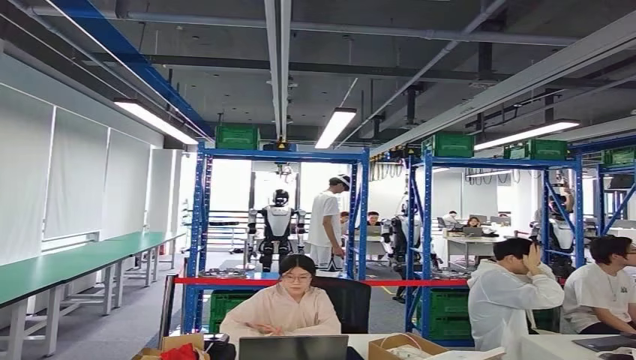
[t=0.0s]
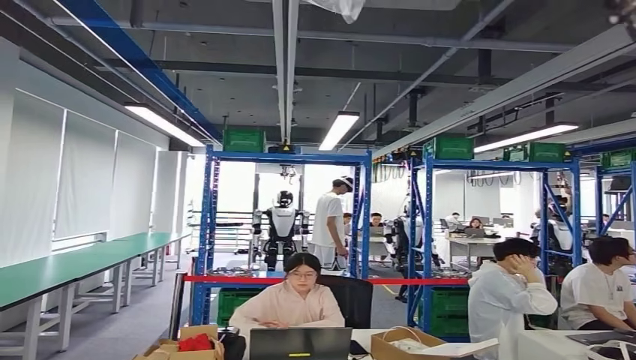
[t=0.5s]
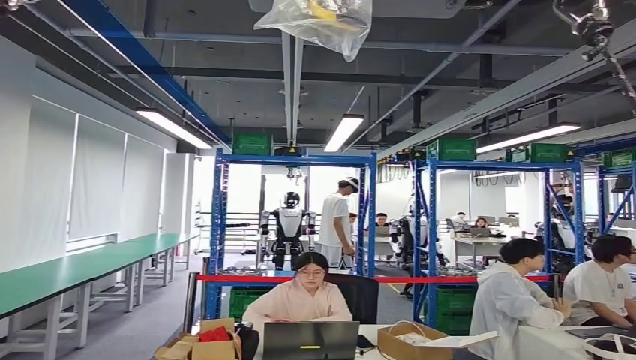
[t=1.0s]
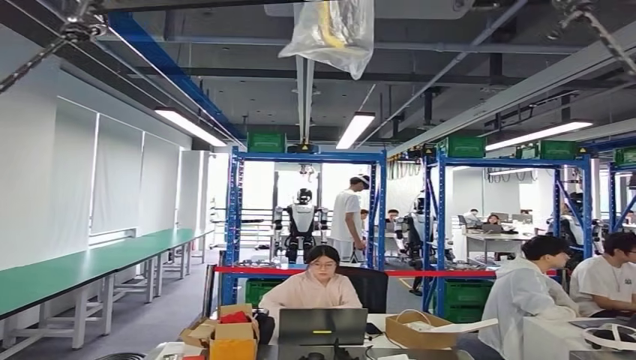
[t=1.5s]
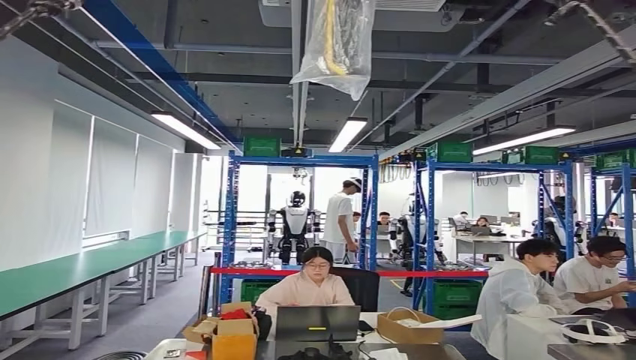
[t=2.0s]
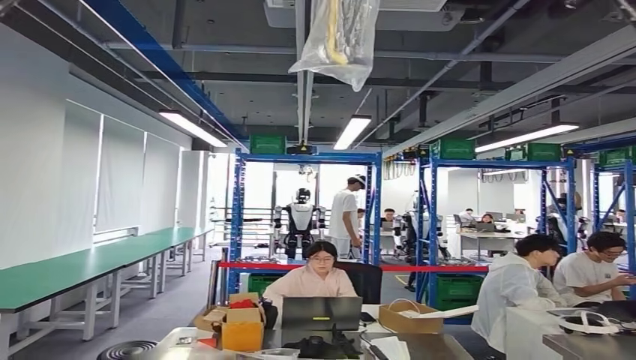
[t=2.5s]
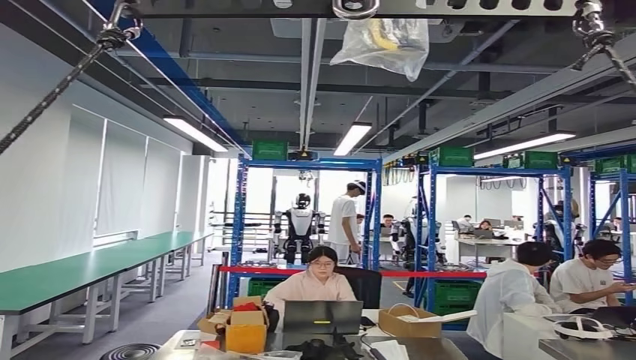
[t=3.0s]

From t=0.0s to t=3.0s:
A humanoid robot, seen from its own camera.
Step, from t=0.0s to t=3.0s: Move to the initial position at the workbench.
